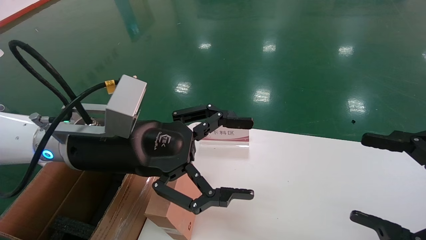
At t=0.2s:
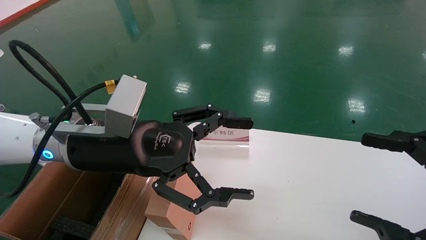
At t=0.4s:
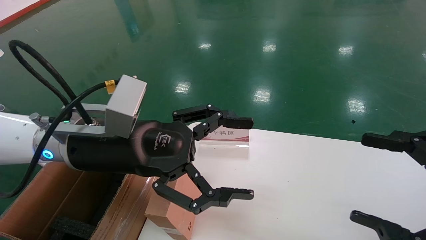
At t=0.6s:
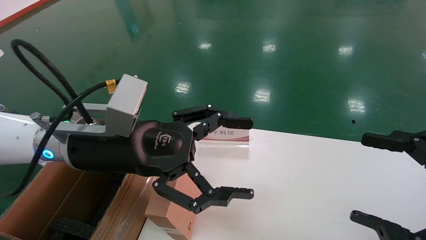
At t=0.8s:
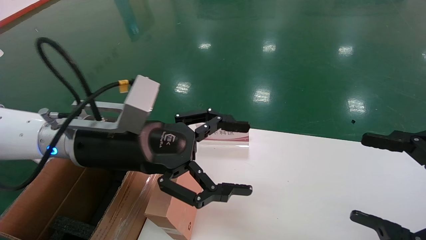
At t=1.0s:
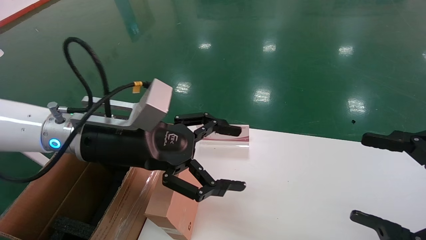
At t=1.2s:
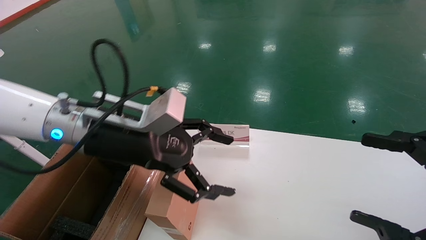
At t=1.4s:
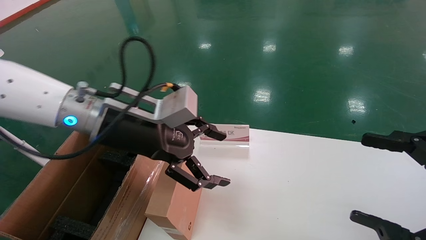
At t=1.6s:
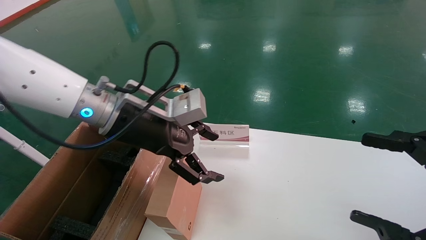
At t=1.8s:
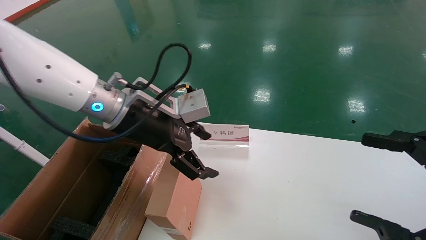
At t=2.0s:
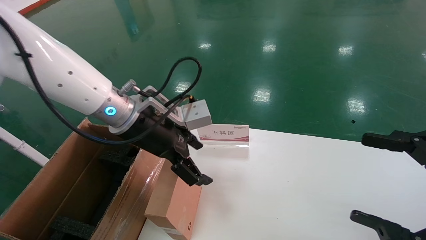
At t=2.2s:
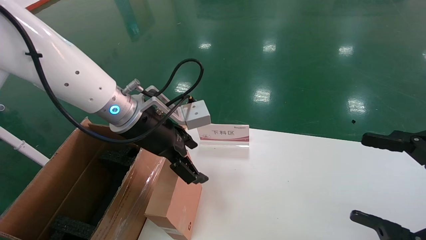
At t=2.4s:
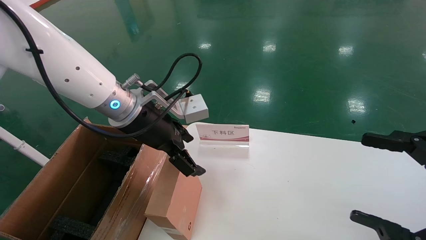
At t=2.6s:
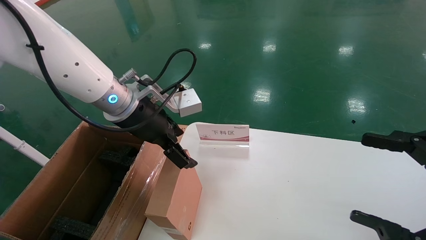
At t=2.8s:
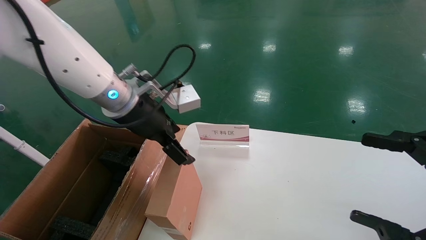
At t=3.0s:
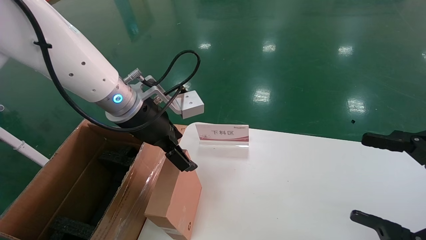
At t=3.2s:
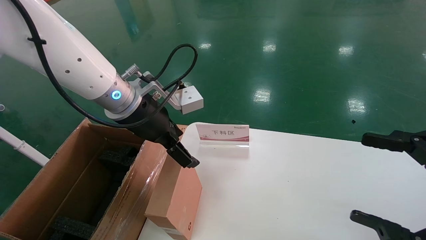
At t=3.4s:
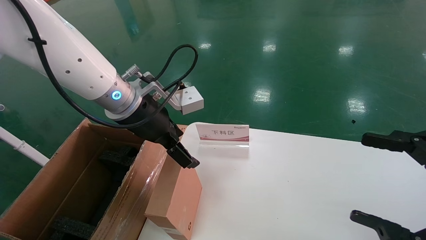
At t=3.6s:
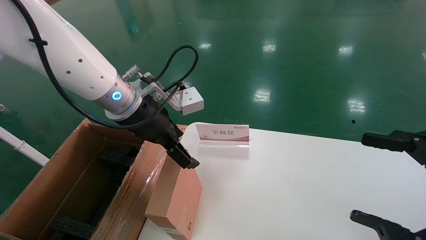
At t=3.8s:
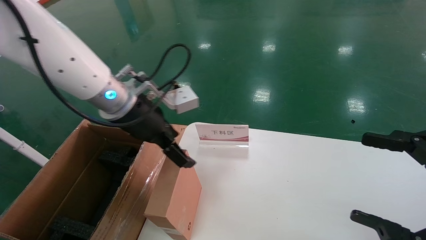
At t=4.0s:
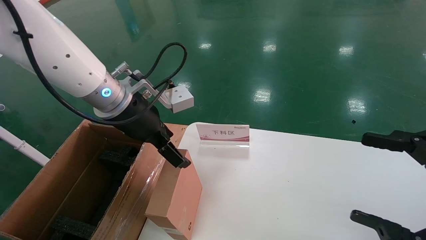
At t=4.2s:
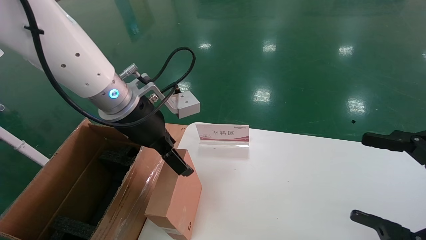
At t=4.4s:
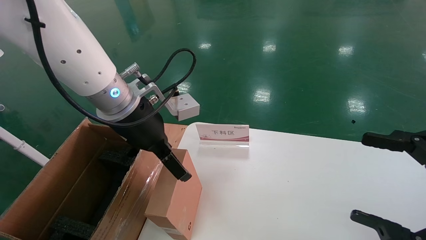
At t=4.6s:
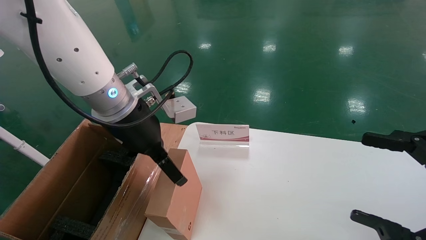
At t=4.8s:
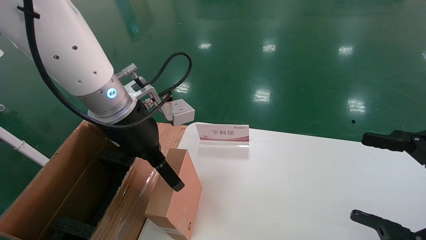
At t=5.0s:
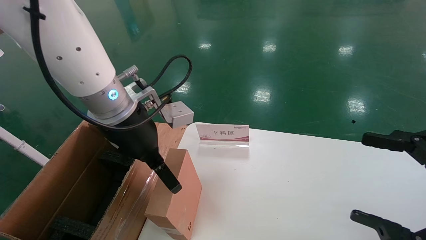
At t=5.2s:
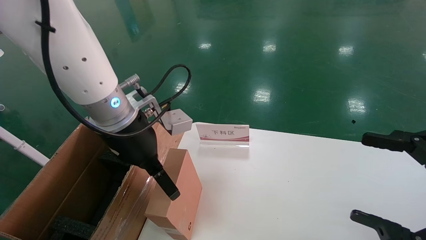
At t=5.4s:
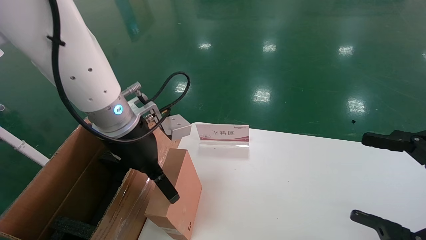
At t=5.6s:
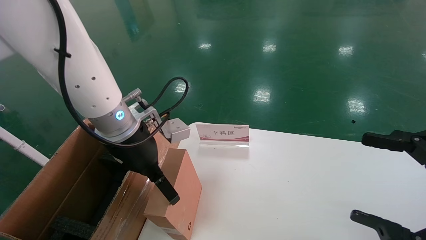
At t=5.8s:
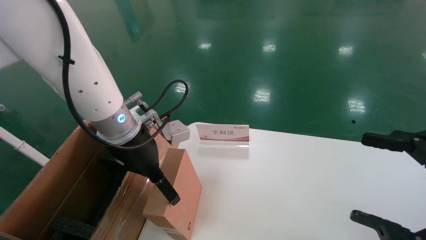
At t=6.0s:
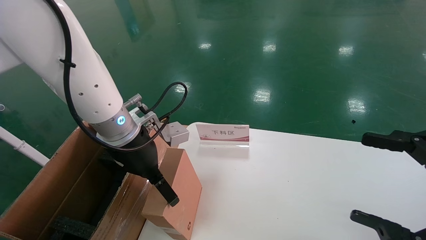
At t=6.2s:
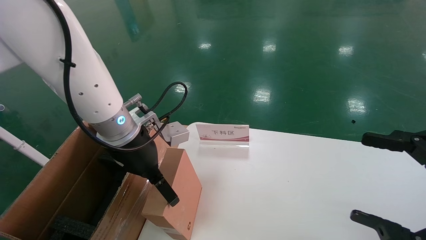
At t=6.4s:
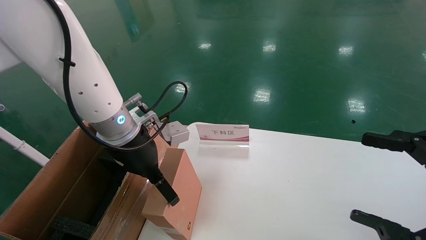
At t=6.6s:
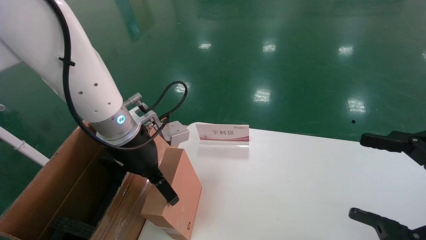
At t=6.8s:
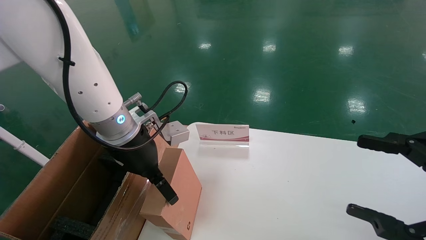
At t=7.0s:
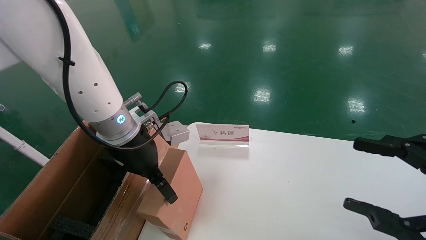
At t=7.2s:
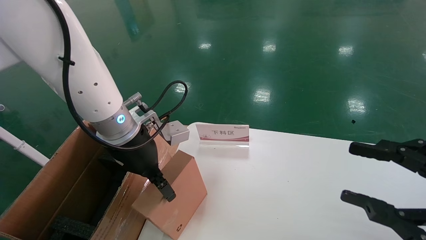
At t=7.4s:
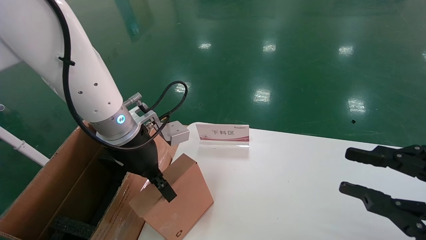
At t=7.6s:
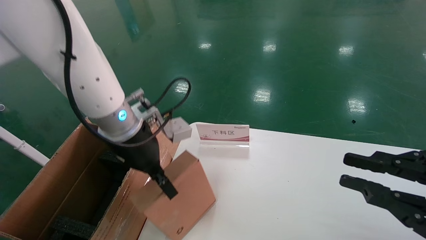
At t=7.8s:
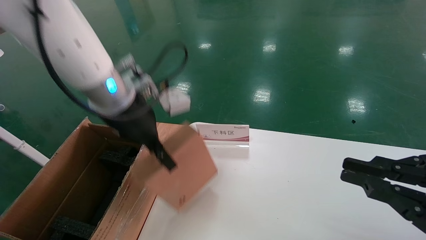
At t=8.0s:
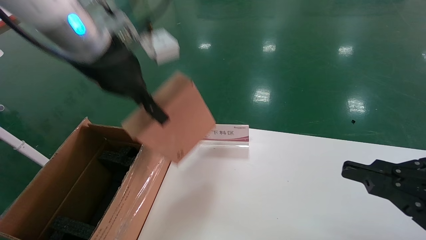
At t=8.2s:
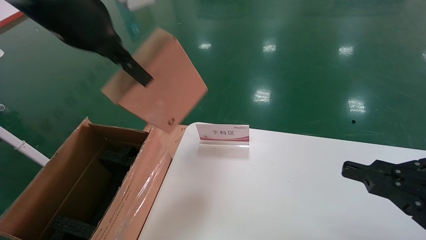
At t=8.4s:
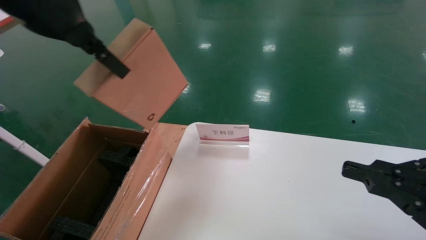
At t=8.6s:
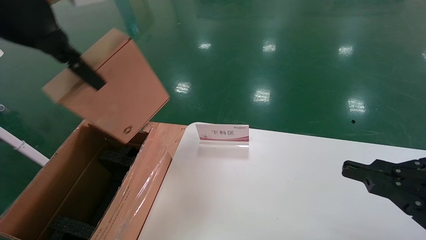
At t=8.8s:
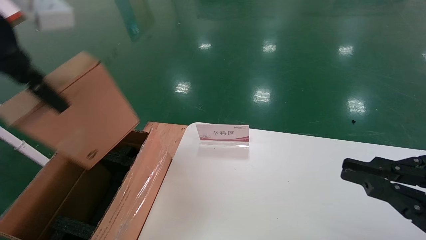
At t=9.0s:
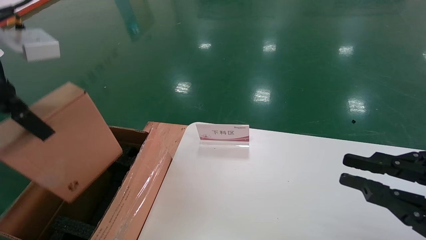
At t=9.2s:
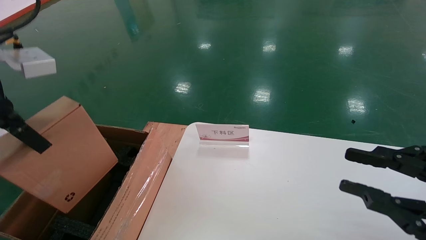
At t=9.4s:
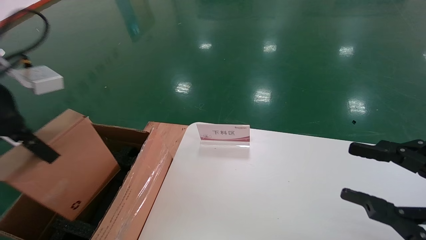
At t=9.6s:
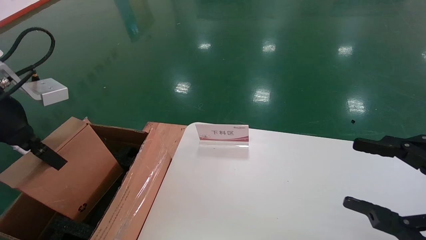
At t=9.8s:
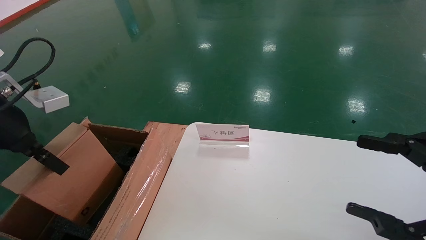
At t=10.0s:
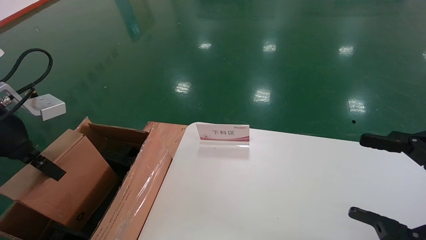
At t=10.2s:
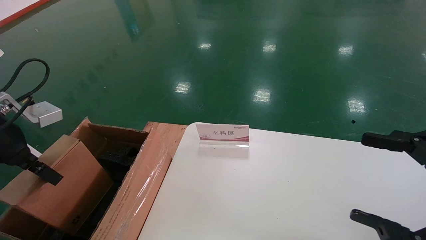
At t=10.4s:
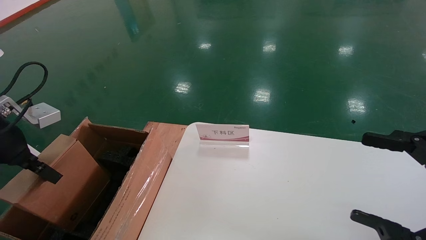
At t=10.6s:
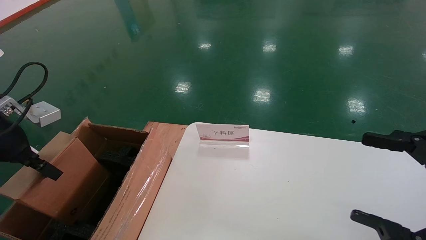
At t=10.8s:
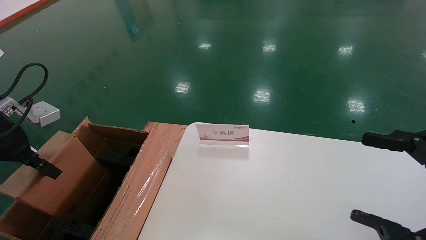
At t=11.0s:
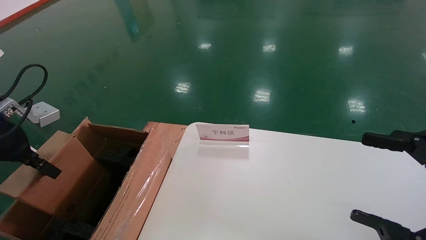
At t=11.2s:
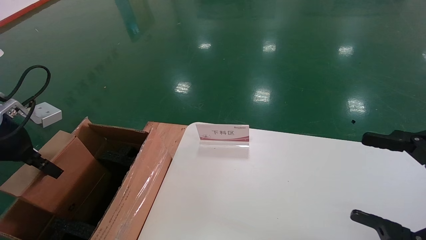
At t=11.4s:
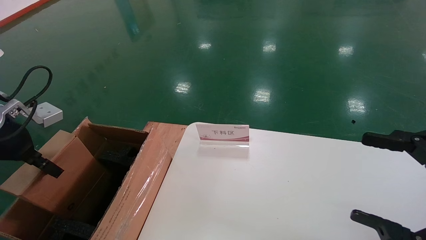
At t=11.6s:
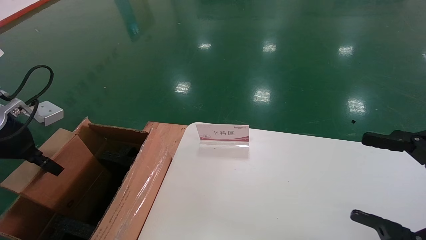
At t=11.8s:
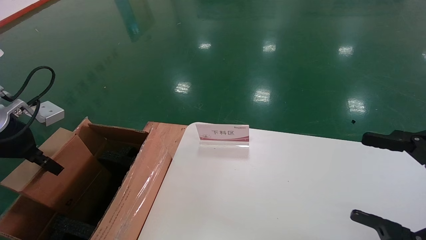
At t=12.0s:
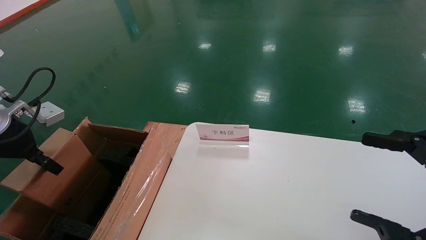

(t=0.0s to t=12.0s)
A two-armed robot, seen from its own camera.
Task of the whole recording: pick up the small cardboard box and load it into the large cardboard box.
Step, t=0.8s - t=7.2s: Pick up the mouse and power cord box.
t=0.0s - t=1.6s: The left gripper travels forward by some 5 cm.
t=3.0s - t=4.4s: The grippers move only a little.
t=4.4s - t=6.0s: There are only small adjustments of the grippers.
t=6.0s - t=7.6s: The left gripper closes; the right gripper closes up.
t=7.6s - t=9.0s: The left gripper shifts roughly 20 cm upward, to the left and backward.
t=9.0s - t=10.4s: The left gripper is displaced downward and to the left by approximately 15 cm, while the right gripper opens up.
t=10.4s - t=12.0s: The grippers stay close to where they were, moving slightly.

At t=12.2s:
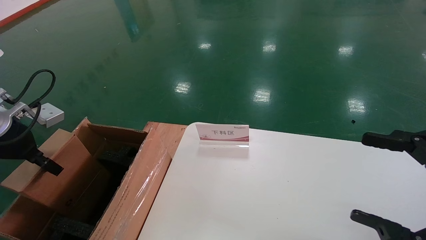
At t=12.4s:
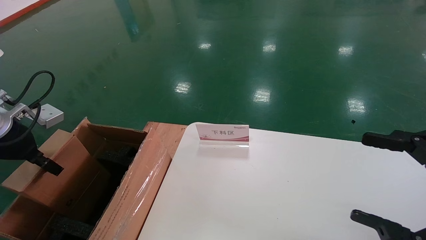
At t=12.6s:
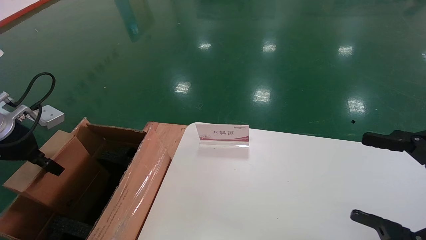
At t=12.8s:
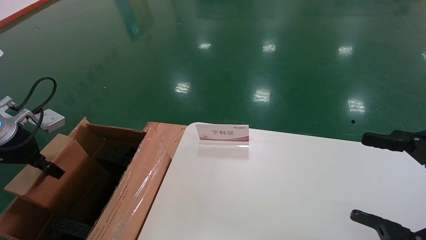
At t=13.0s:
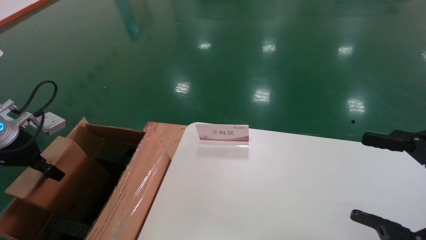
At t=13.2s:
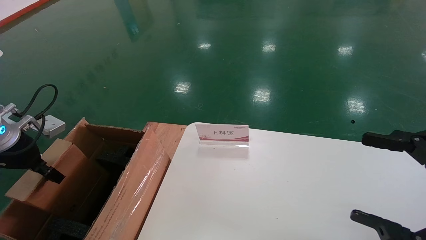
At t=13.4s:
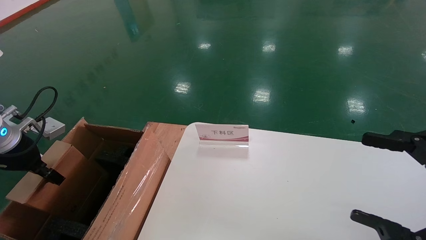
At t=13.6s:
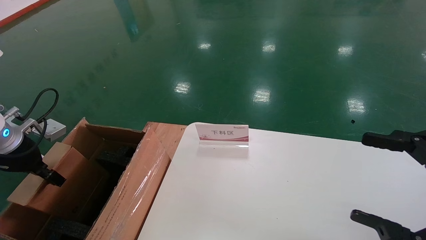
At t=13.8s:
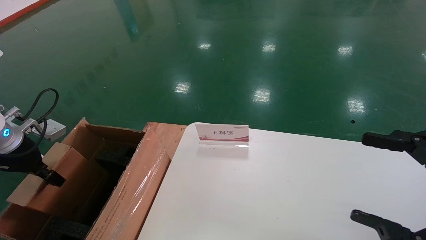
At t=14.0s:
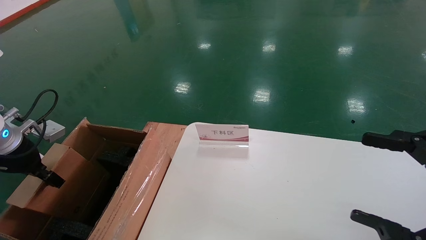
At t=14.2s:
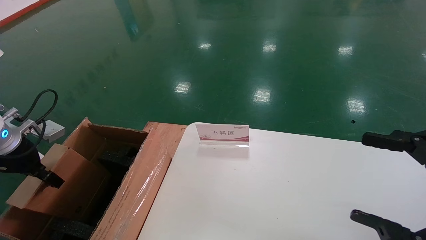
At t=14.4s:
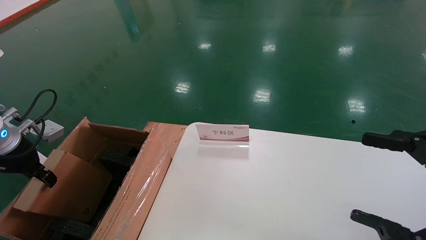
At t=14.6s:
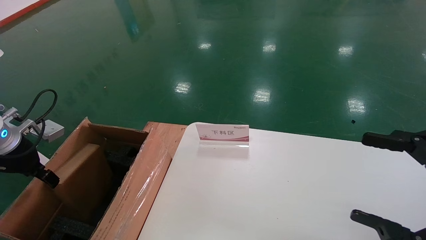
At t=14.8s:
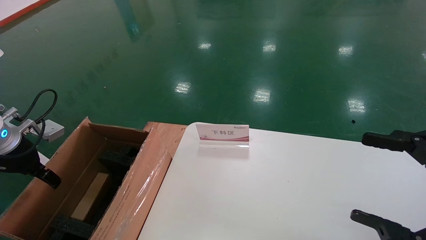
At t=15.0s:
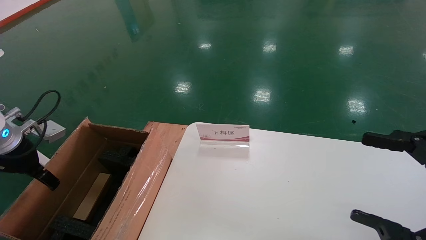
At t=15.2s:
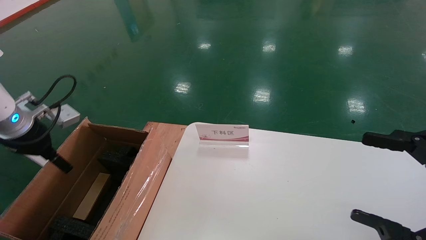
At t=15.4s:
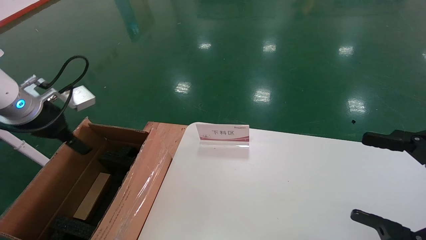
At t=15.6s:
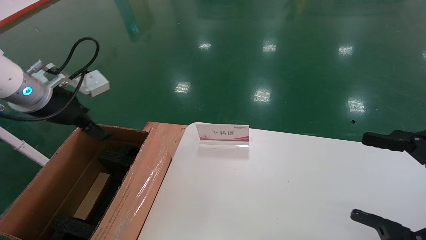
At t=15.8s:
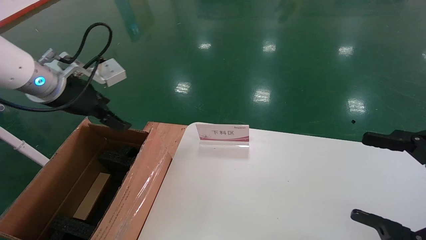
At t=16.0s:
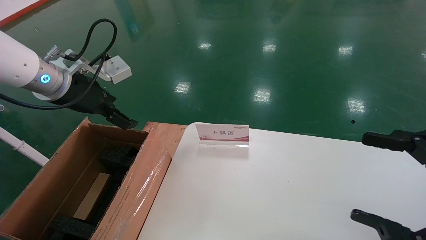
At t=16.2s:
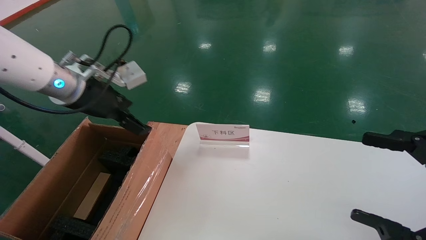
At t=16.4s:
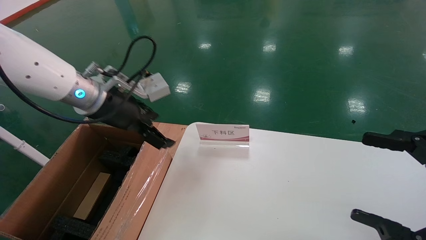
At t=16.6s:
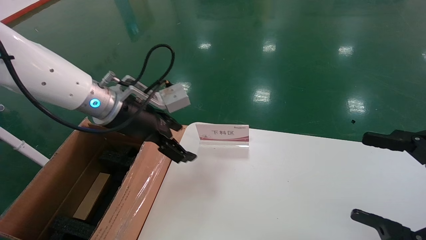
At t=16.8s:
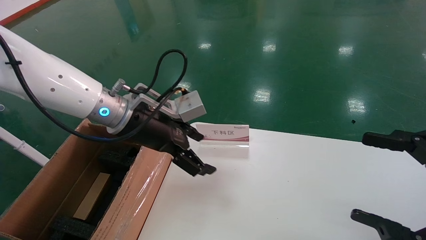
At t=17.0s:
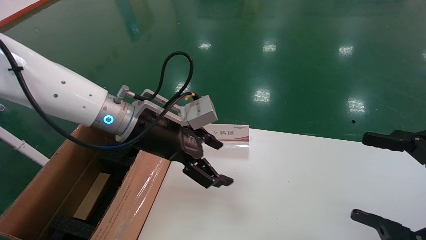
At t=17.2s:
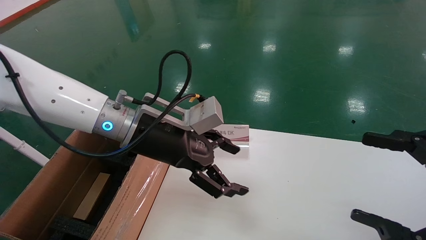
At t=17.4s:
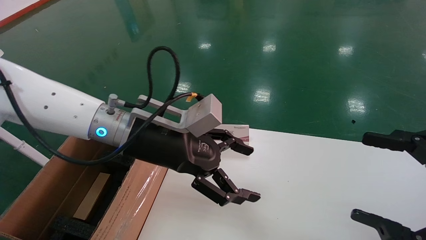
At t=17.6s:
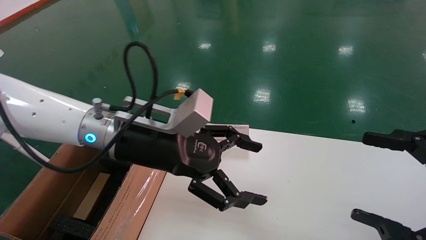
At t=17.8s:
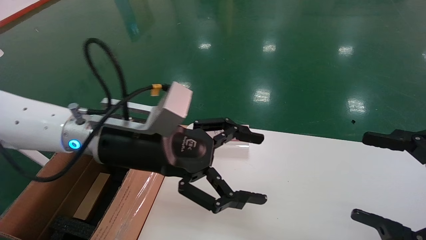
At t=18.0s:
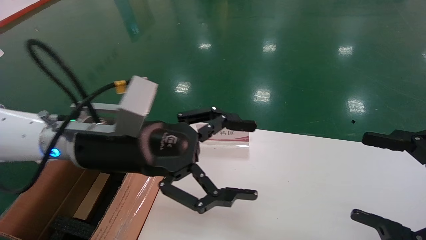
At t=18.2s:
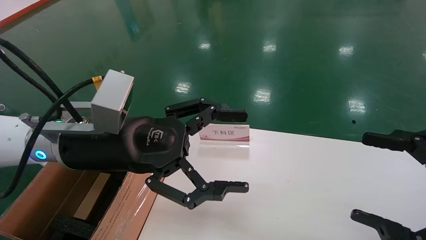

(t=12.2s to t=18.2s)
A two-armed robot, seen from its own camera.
Task of the whole recording: pick up the small cardboard box and load it into the large cardboard box.
Step, t=12.2s - t=14.2s: Place the mouse and power cord box into the case.
t=12.2s - t=13.8s: The left gripper changes place by some 5 cm.
t=13.8s - t=15.2s: The left gripper shifts by roughly 5 cm, and opens its fingers.
t=15.2s - t=16.6s: The left gripper is displaced to the right by some 20 cm.
t=16.6s - t=18.2s: The left gripper heads backward, covering roughly 10 cm.
